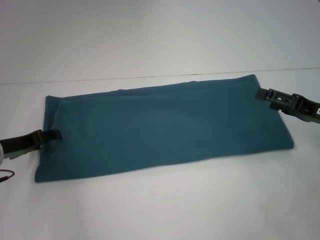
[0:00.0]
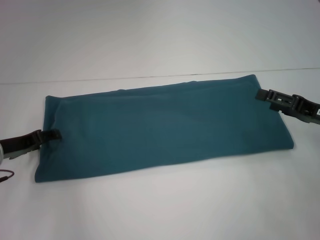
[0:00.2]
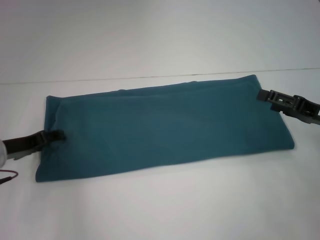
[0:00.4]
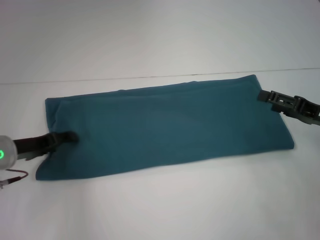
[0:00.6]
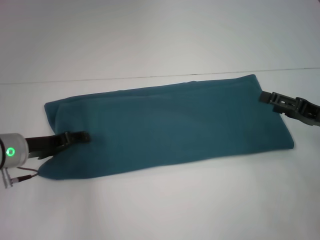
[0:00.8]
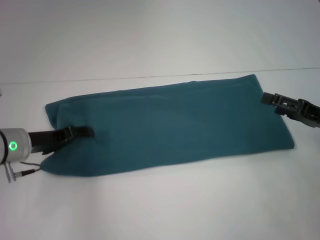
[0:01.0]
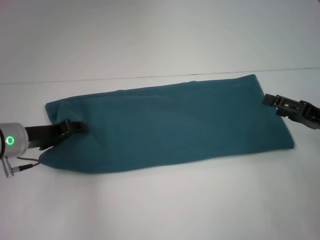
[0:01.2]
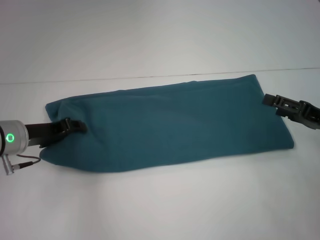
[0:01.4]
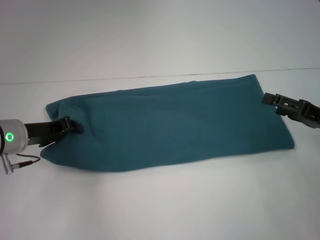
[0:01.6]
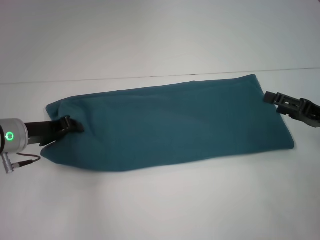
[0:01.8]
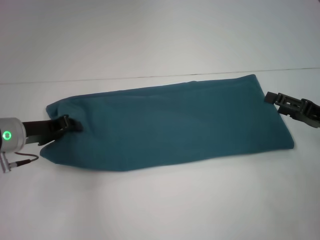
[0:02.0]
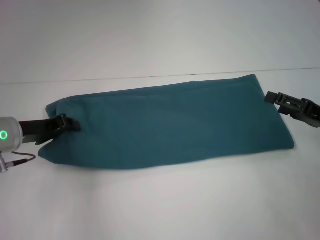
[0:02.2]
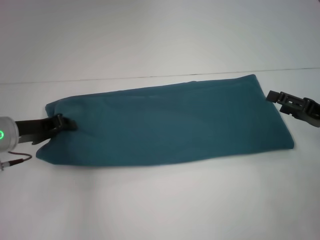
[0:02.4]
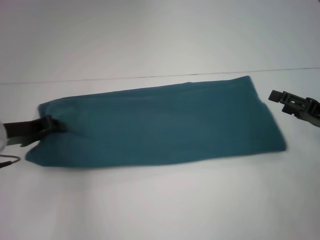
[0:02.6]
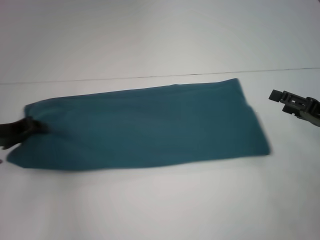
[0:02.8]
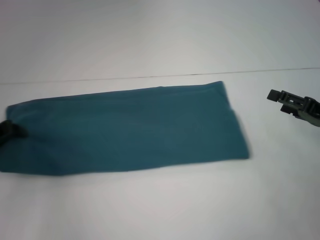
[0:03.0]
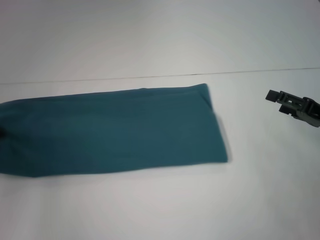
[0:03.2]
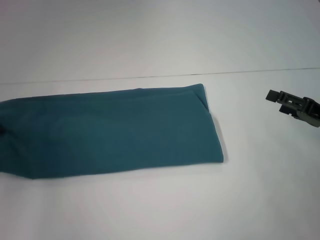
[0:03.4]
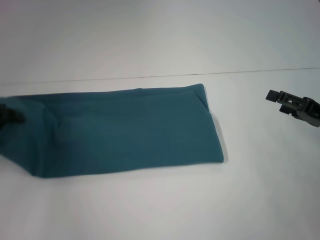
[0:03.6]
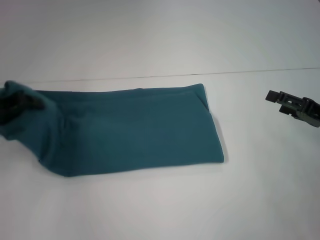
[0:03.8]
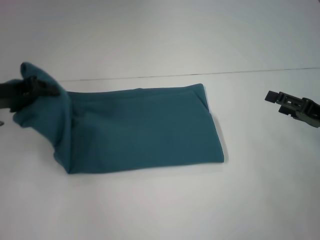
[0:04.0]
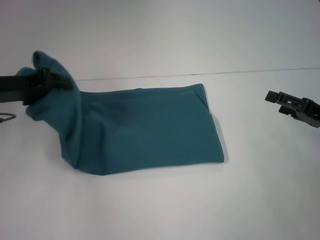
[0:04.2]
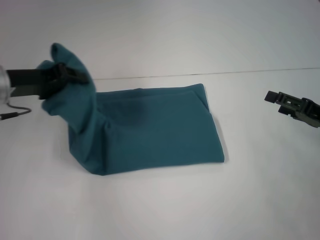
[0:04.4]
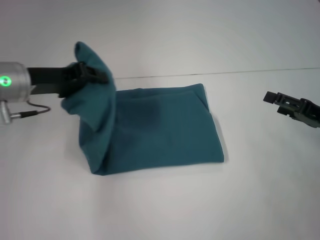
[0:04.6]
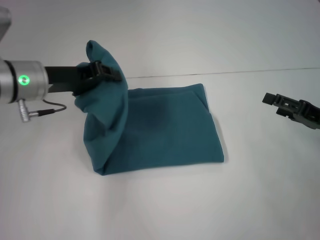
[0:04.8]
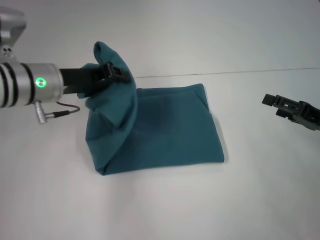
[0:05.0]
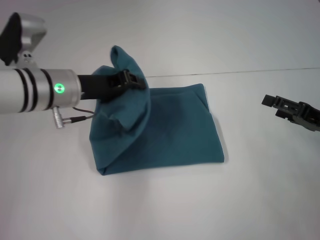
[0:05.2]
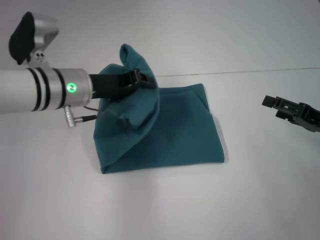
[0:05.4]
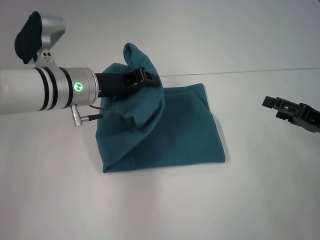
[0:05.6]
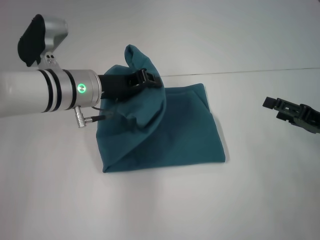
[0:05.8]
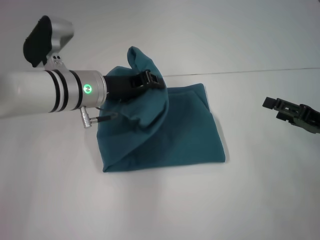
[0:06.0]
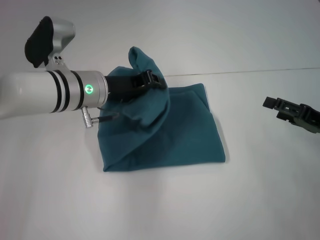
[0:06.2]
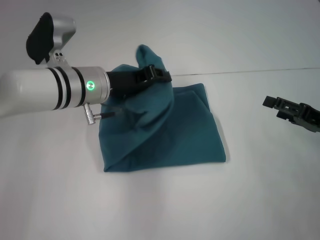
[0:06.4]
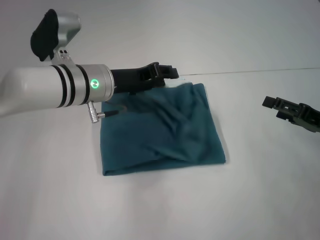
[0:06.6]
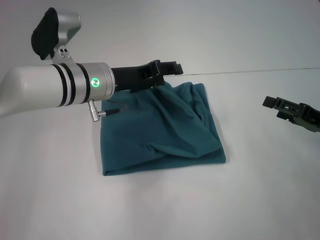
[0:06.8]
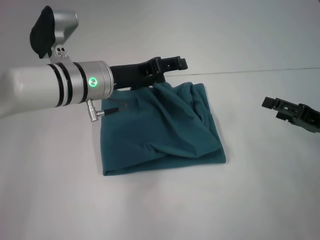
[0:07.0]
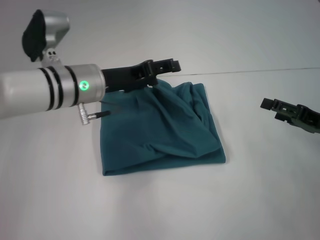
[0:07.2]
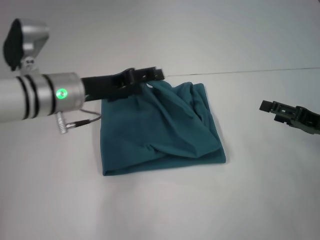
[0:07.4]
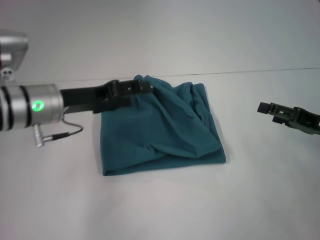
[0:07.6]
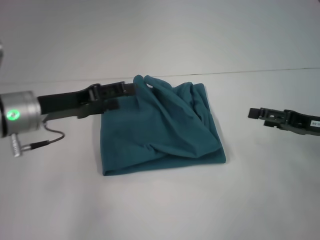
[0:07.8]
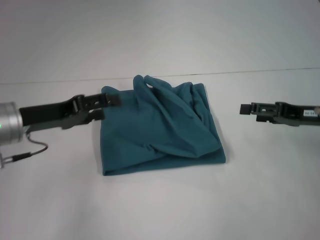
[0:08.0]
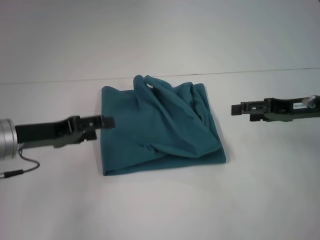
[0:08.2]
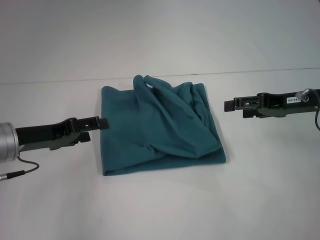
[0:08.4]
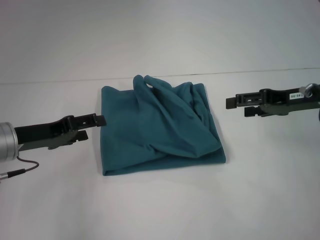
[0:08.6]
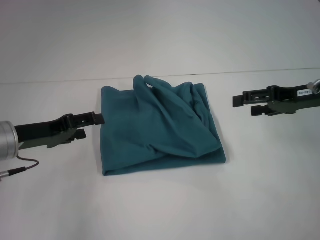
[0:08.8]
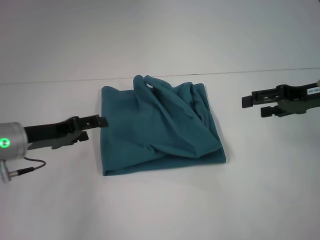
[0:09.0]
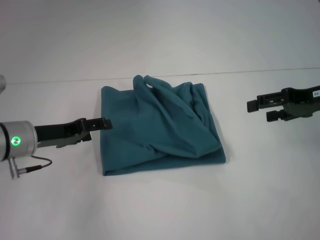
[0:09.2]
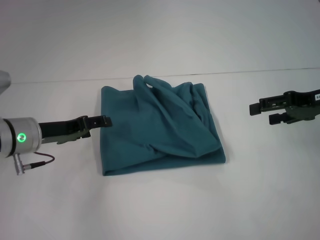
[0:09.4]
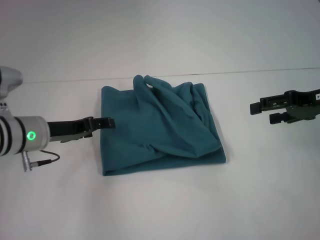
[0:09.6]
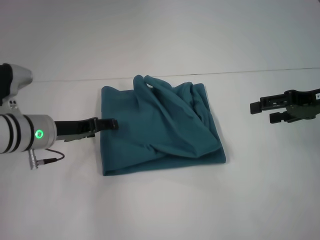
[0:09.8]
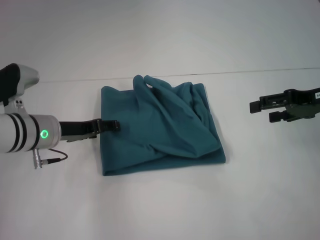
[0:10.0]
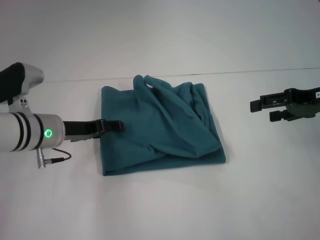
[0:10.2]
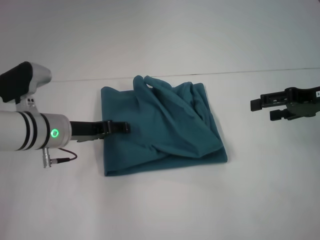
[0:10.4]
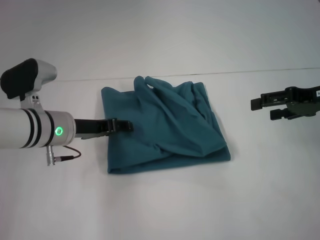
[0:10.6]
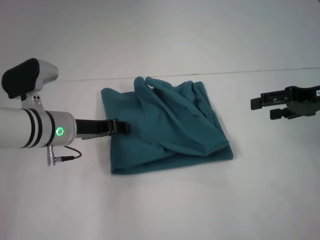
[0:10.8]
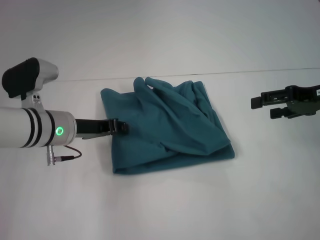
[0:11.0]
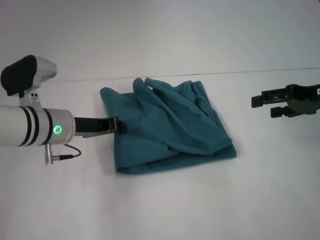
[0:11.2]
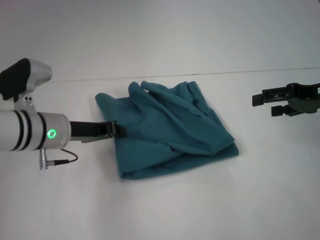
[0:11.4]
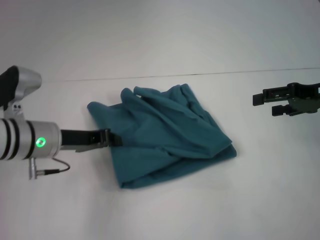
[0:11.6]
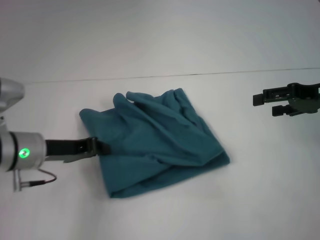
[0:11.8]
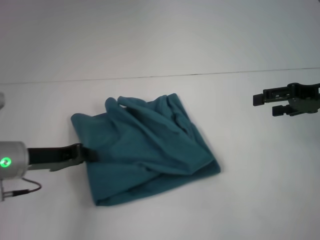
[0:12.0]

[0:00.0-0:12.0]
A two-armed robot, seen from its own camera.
Step, 0:00.0 to 0:07.6: Fold the clothes to the left.
0:00.0 to 0:01.6: The left gripper closes.
0:01.6 to 0:03.0: The left gripper travels to the left by approximately 10 cm.
0:03.0 to 0:04.4: The left gripper travels to the right and upward by some 10 cm.
0:04.4 to 0:06.0: The left gripper moves to the right, some 15 cm.
0:06.0 to 0:07.6: The left gripper goes approximately 5 cm to the left, and opens.
0:07.6 to 0:09.0: The left gripper moves to the left, roughly 5 cm. The right gripper is displaced upward and forward by roughly 10 cm.
0:09.0 to 0:10.4: The left gripper heads to the right, covering approximately 5 cm.
0:10.4 to 0:12.0: The left gripper moves to the left and backward, about 10 cm, and closes its fingers.

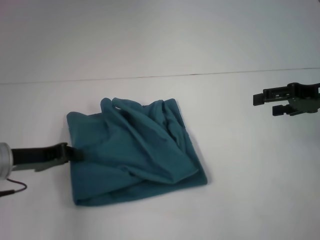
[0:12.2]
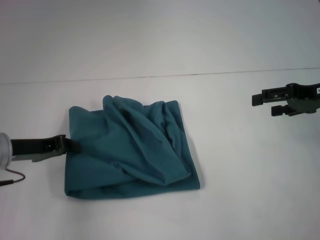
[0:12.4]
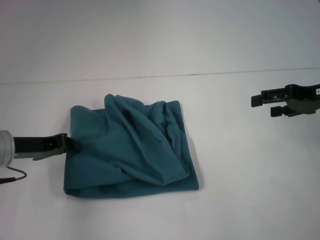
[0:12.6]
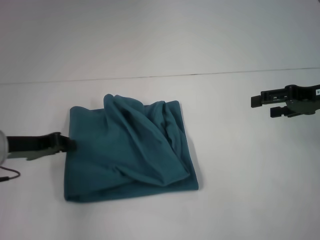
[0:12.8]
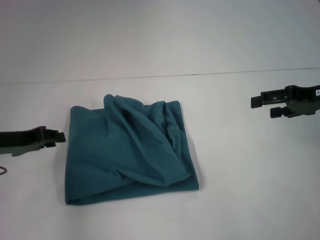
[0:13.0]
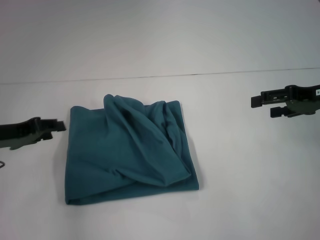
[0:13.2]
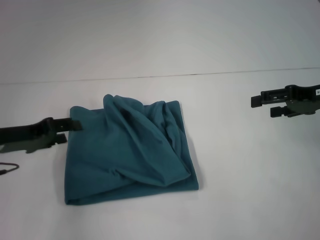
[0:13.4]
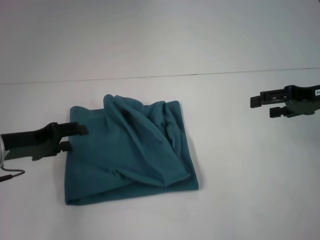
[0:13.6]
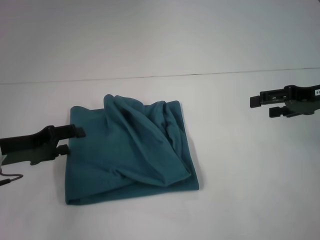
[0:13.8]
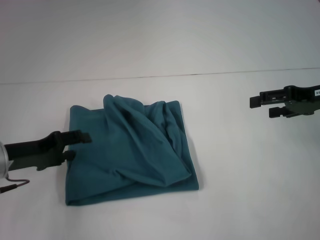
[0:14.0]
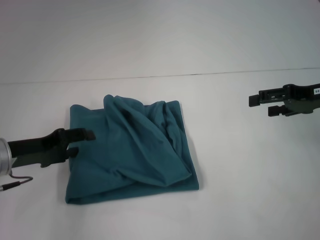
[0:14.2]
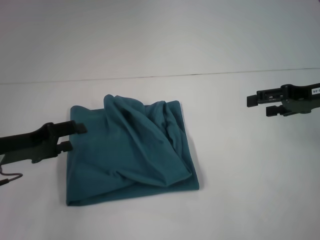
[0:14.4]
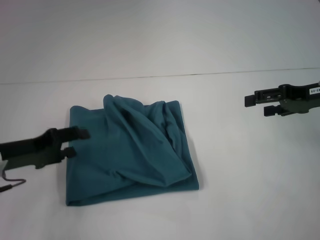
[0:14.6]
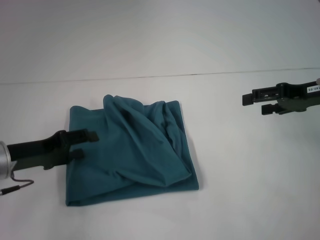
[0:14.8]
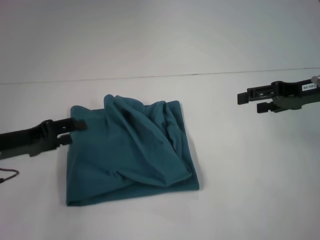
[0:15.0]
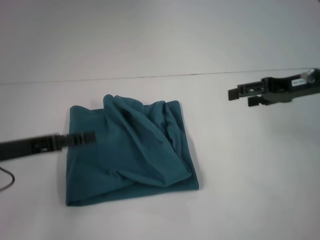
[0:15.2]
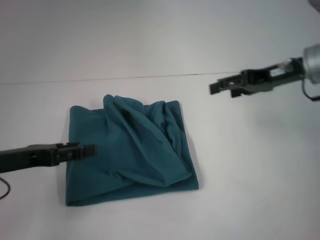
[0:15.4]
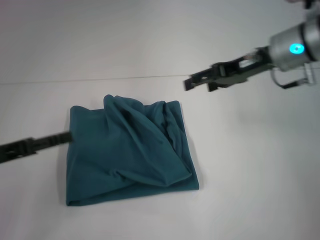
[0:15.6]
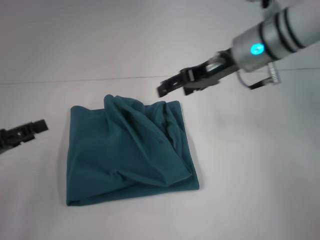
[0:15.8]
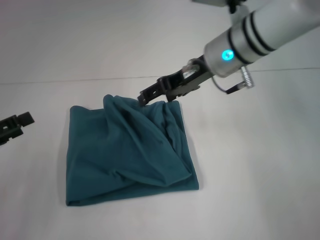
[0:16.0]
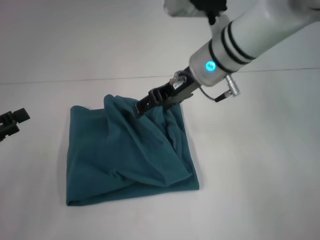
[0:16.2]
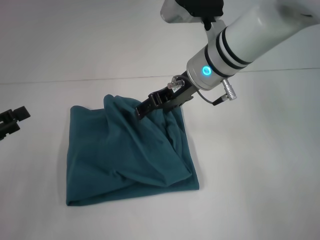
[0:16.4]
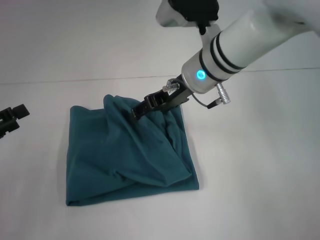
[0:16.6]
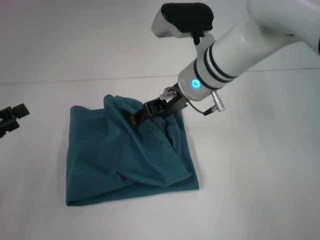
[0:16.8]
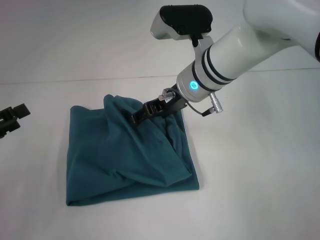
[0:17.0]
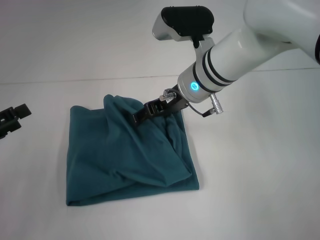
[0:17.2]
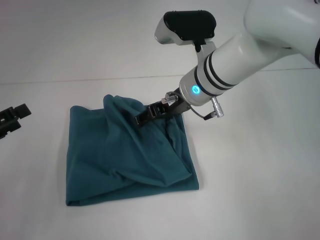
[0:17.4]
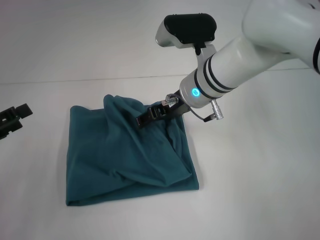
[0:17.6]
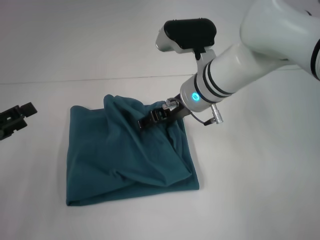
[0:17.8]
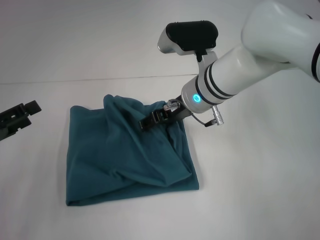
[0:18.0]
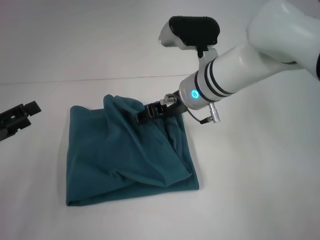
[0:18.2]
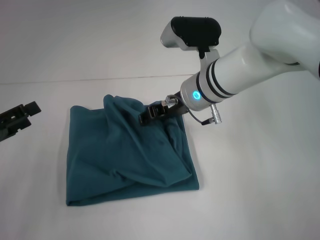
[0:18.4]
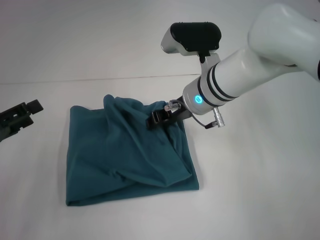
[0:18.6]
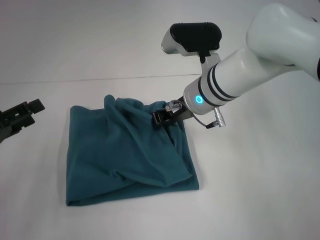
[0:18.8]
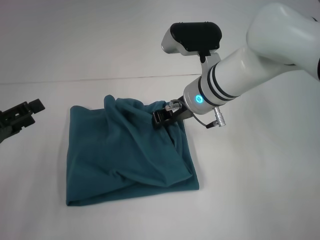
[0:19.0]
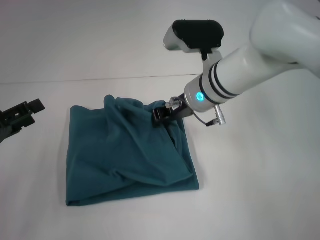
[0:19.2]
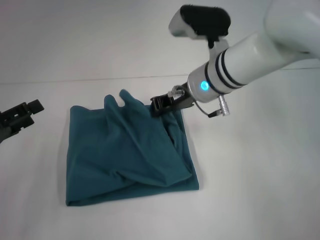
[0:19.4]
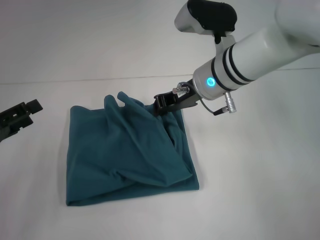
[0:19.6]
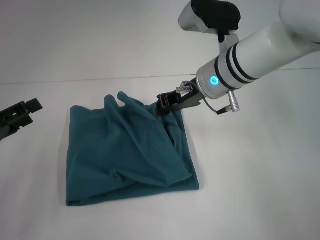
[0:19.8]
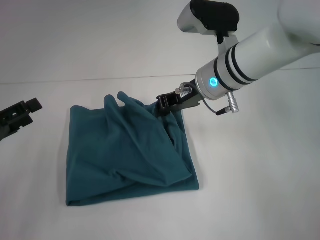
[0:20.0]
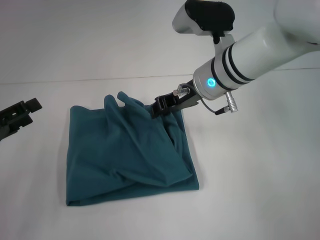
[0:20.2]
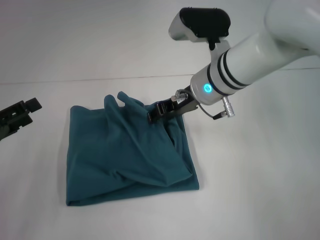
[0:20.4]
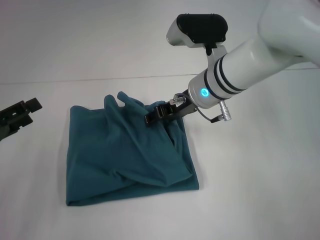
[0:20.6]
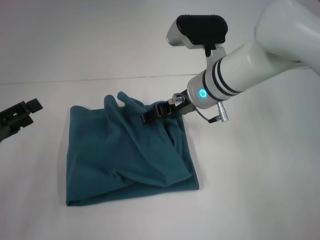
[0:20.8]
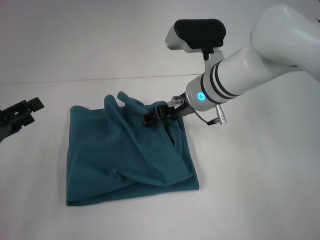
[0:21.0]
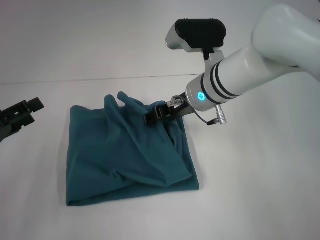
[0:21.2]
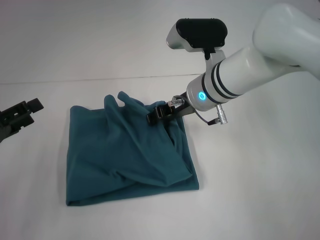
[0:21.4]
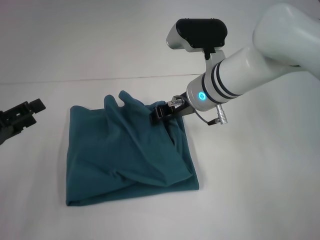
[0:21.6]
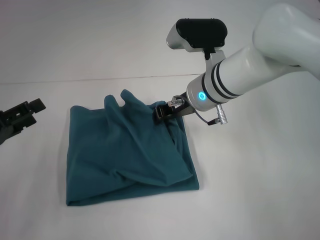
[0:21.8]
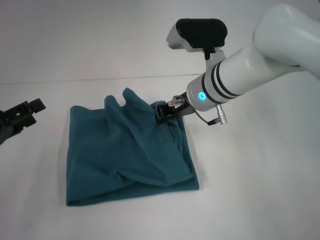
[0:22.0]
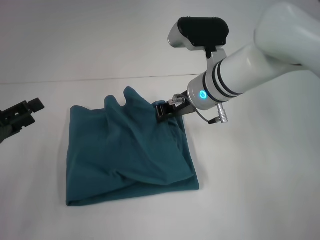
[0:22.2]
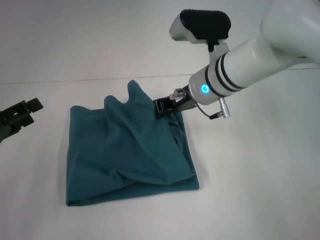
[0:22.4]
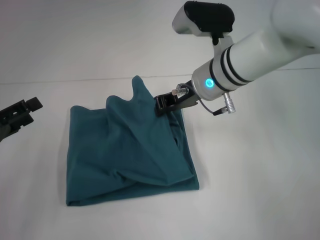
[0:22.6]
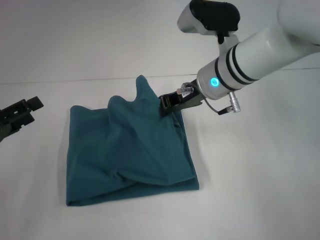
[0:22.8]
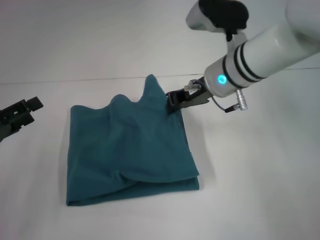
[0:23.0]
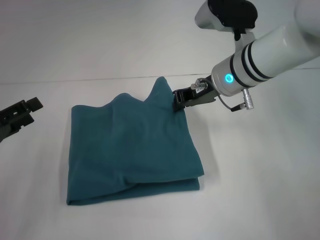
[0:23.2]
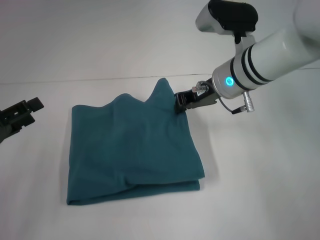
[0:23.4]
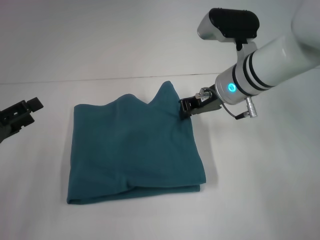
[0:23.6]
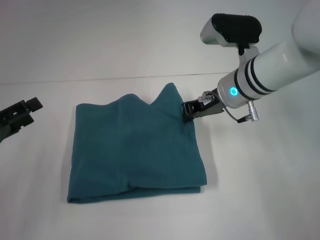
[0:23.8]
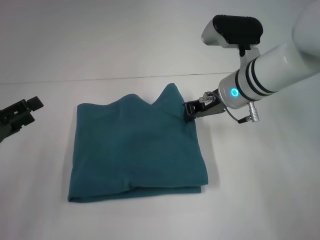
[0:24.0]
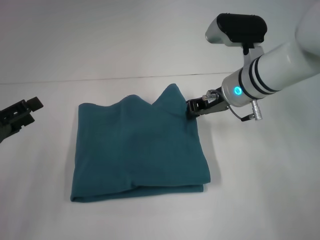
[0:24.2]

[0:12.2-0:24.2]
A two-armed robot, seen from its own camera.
0:12.2 to 0:13.8: The left gripper opens up.
0:15.2 to 0:16.6: The right gripper goes some 20 cm to the left. Meanwhile the left gripper shifts roughly 5 cm to the left.
0:16.6 to 0:18.2: The grippers move only a little.
0:18.2 to 0:19.8: The right gripper closes its fingers.
0:19.8 to 0:21.2: The right gripper opens.
0:21.2 to 0:22.6: The right gripper closes.
0:22.6 to 0:24.2: The right gripper changes place by approximately 5 cm.
